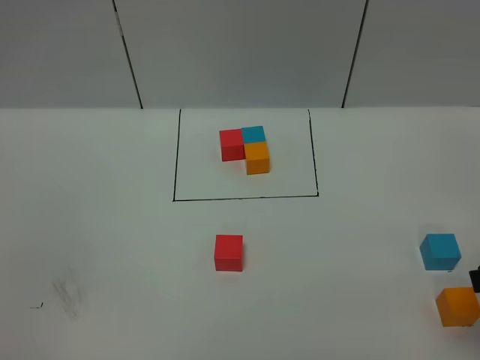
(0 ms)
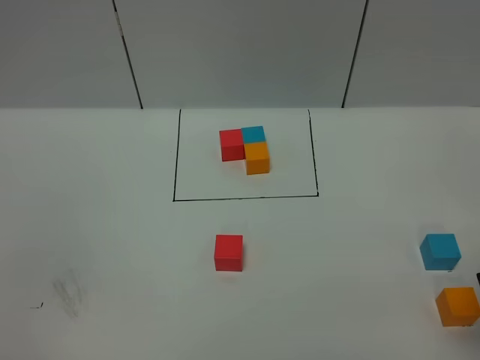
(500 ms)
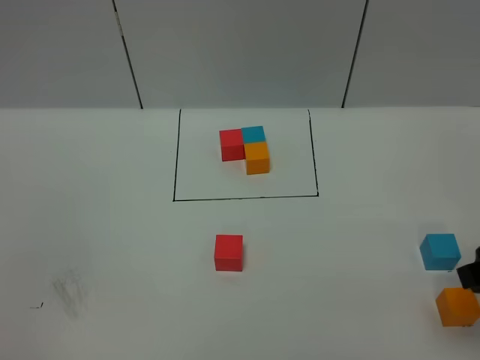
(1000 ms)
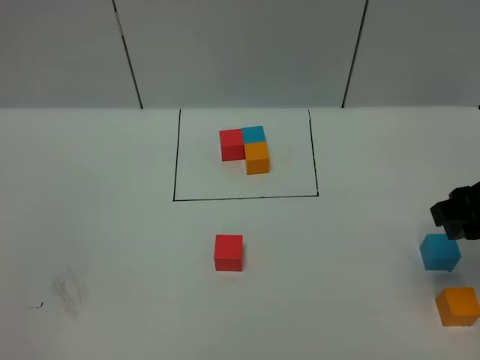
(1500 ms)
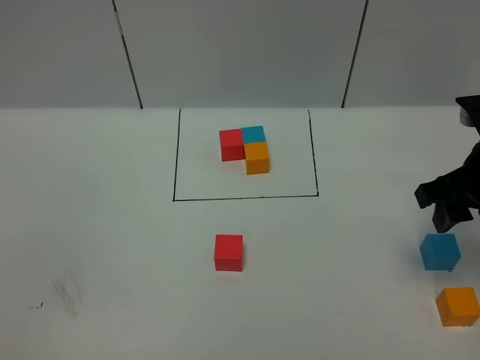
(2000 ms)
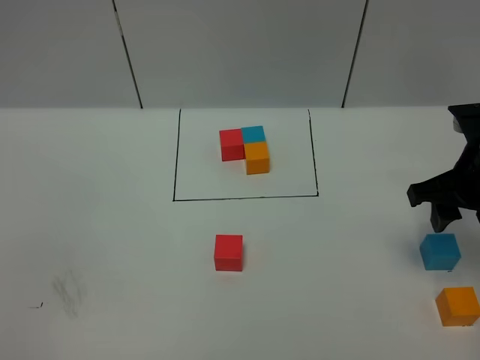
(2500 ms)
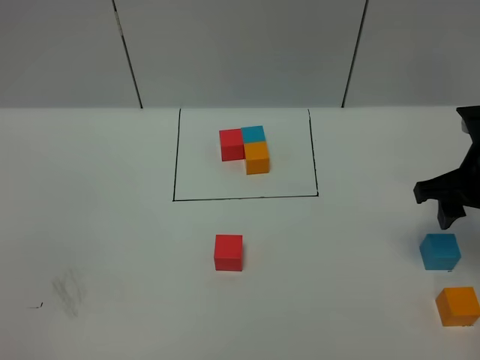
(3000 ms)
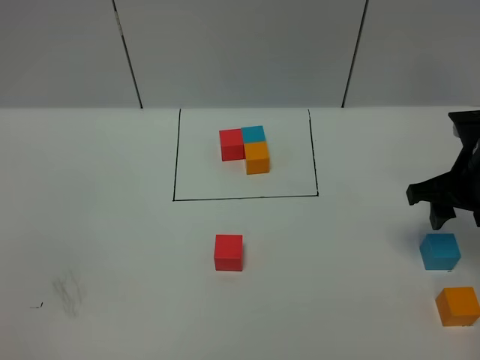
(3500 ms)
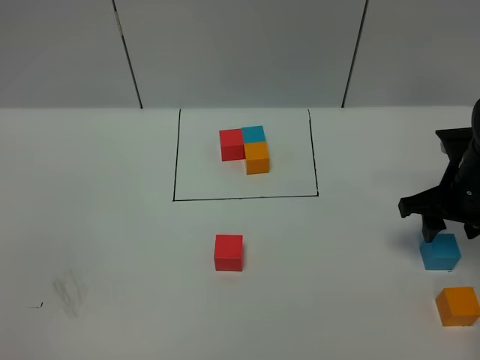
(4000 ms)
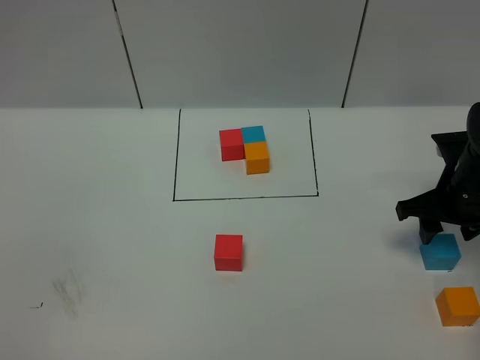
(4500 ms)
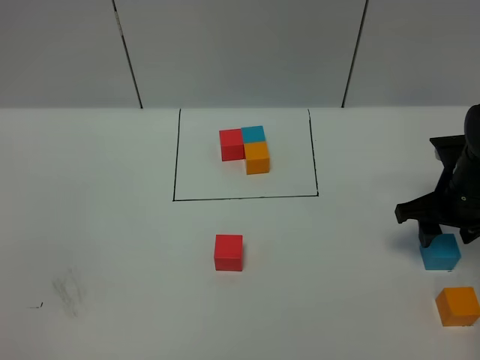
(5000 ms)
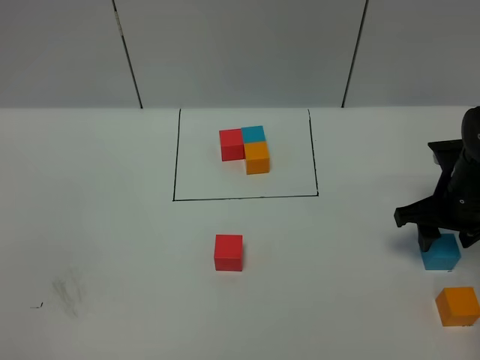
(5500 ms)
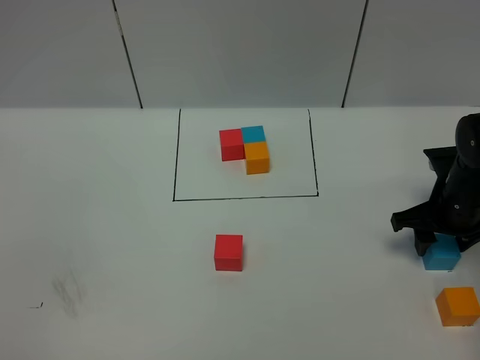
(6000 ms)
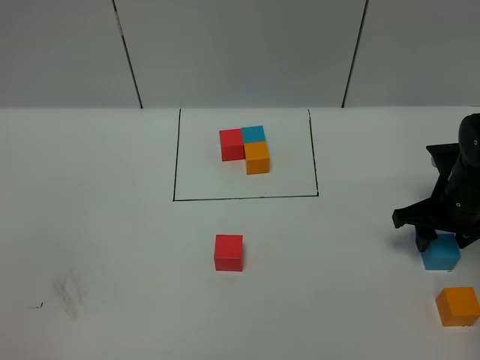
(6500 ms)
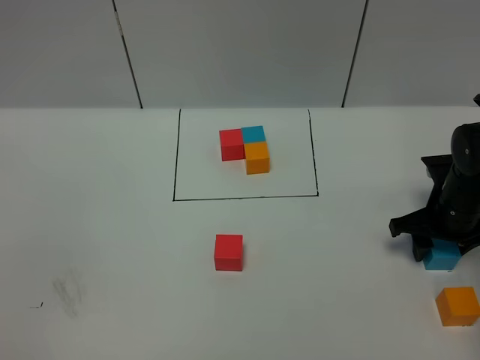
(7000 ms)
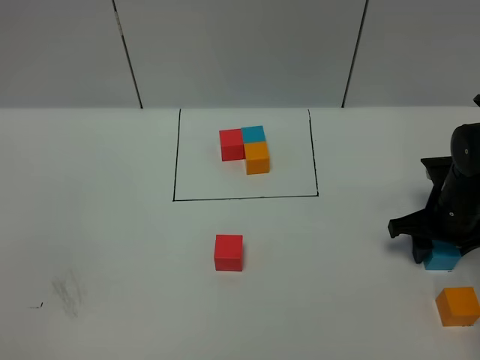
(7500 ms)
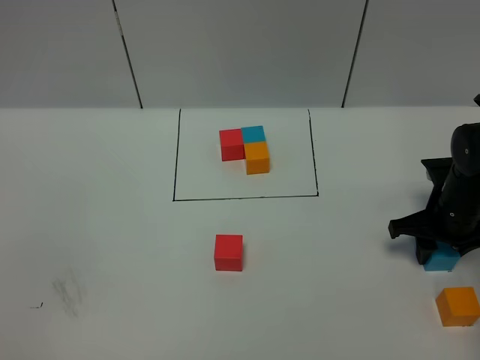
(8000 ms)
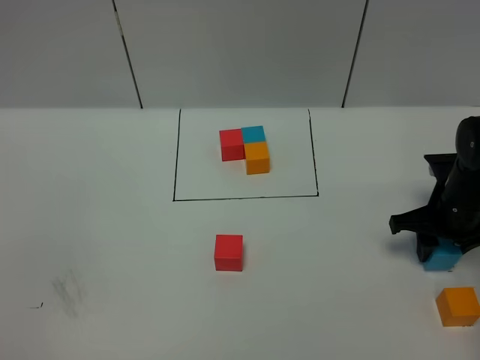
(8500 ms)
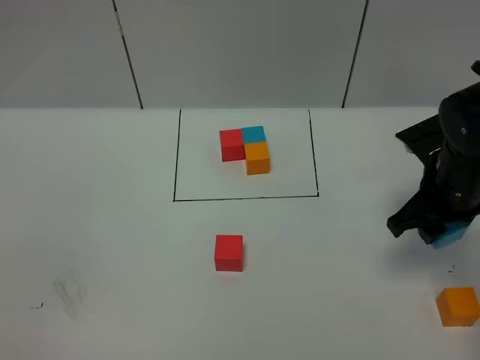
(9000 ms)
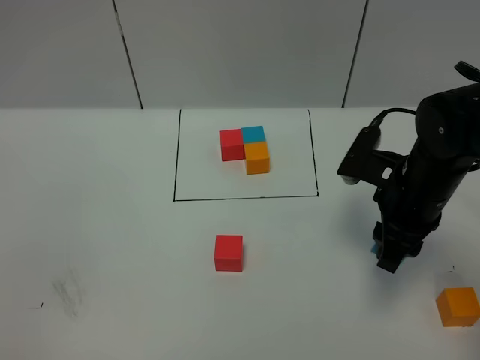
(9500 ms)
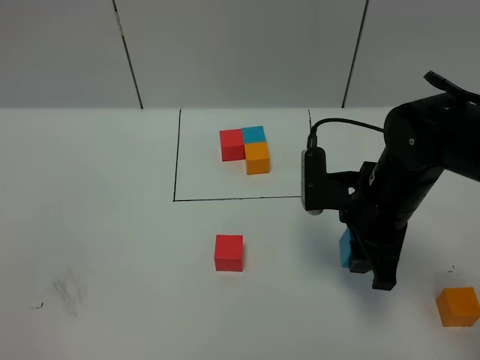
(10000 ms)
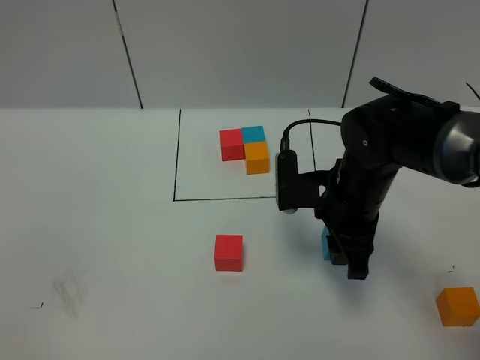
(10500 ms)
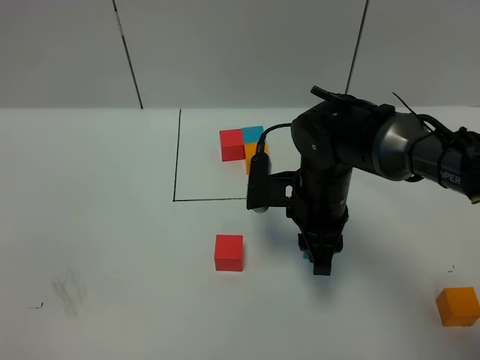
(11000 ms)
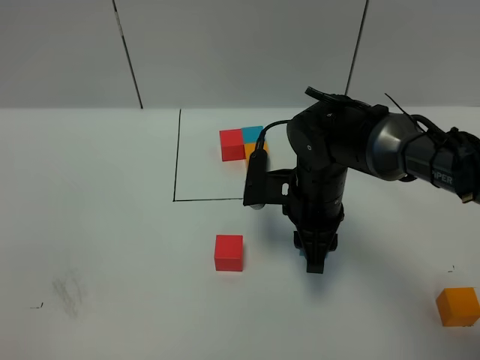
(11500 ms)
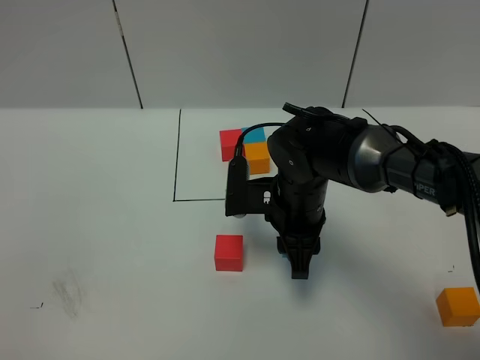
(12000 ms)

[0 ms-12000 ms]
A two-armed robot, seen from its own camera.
Task of the whole recording: According to the building block template in front, assemble the scattered blocks together.
0 ms to 2000 ms: The right gripper shifts approximately 10 cm forward.
2000 ms to 4000 ms: The right gripper moves downward and forward, about 10 cm.
4000 ms to 8000 ms: There are only small adjustments of the grippers.
8000 ms to 10000 ms: The right gripper heads to the left, upward and backward, covering approximately 15 cm.
10000 ms to 12000 ms: The right gripper is displaced to the left by some 10 cm.

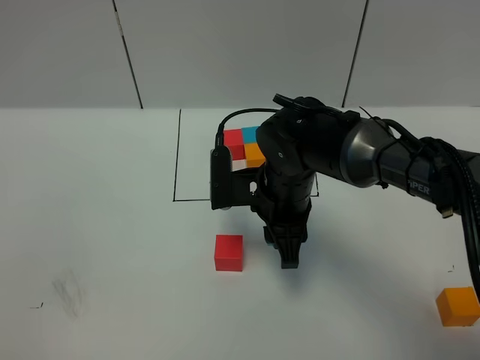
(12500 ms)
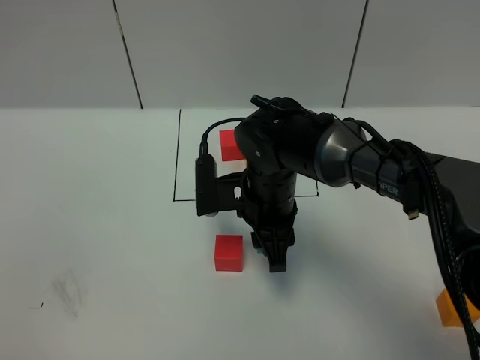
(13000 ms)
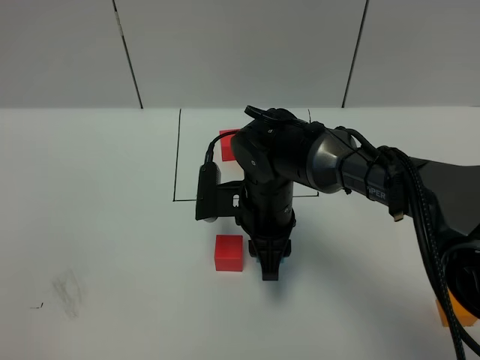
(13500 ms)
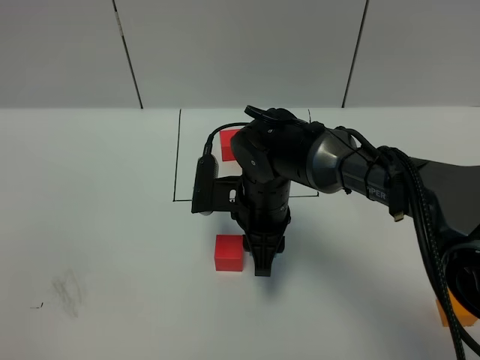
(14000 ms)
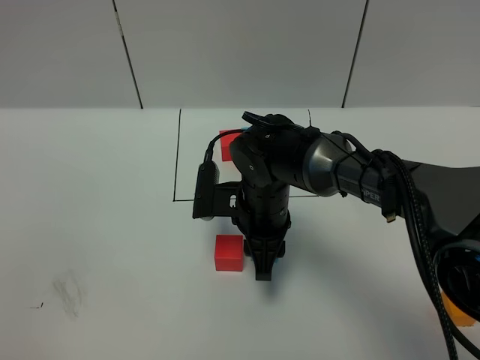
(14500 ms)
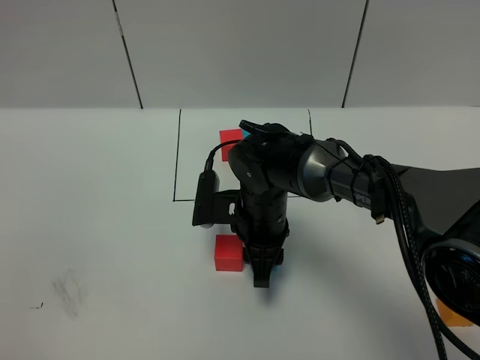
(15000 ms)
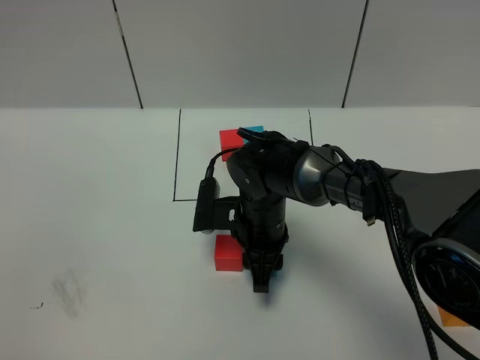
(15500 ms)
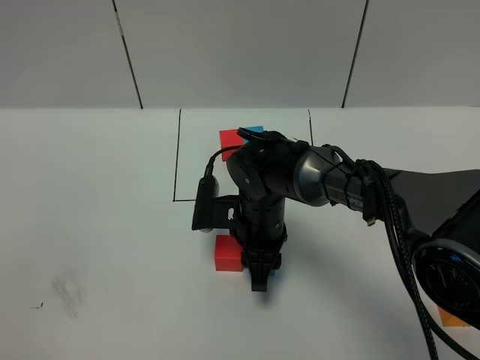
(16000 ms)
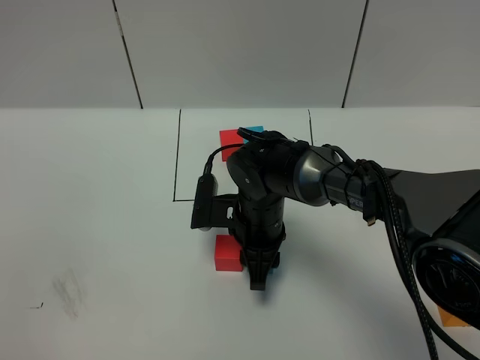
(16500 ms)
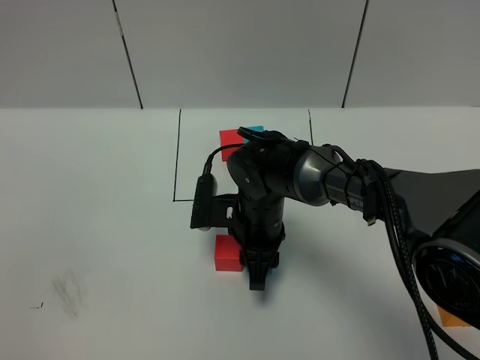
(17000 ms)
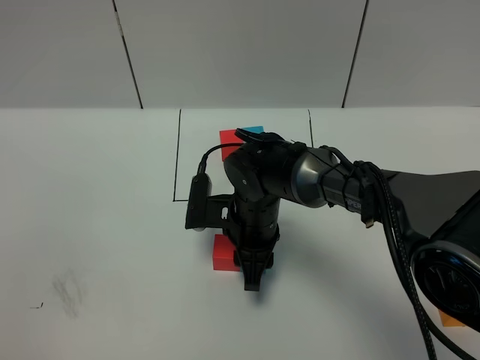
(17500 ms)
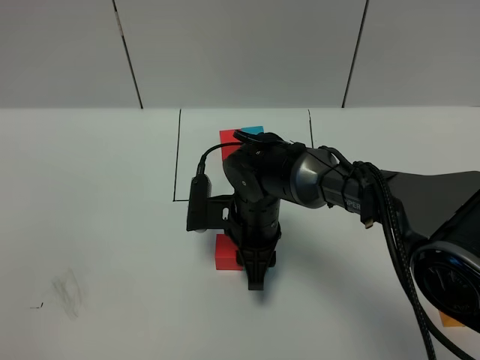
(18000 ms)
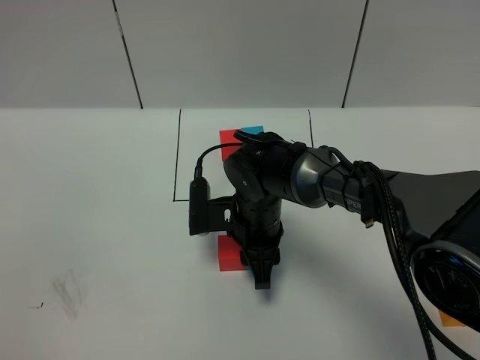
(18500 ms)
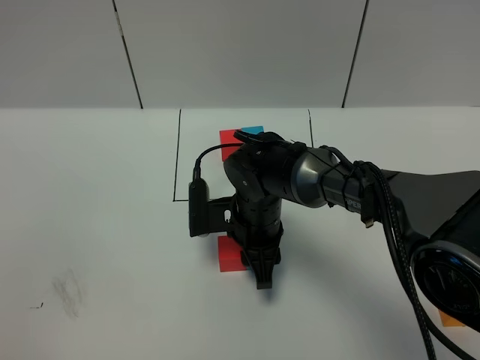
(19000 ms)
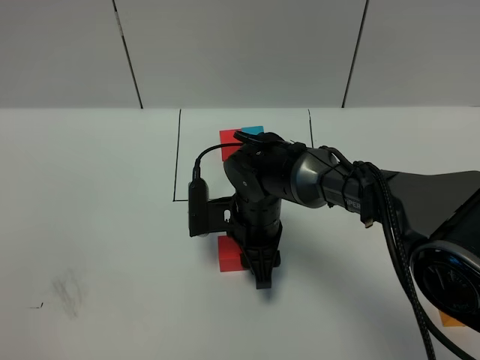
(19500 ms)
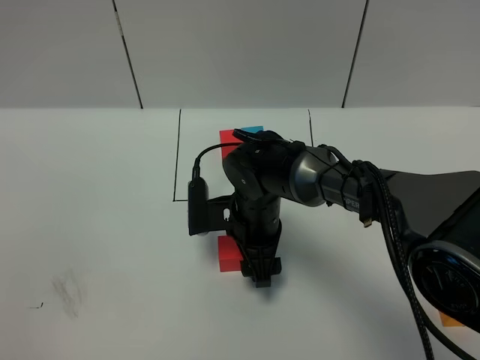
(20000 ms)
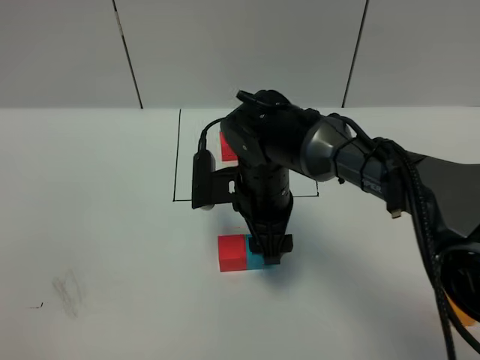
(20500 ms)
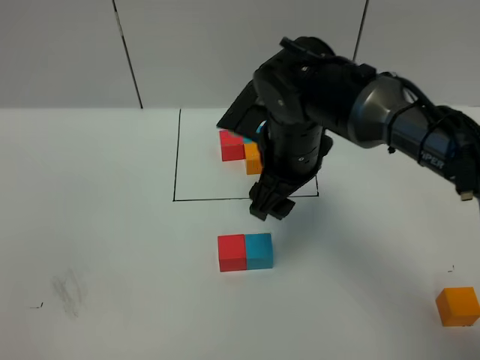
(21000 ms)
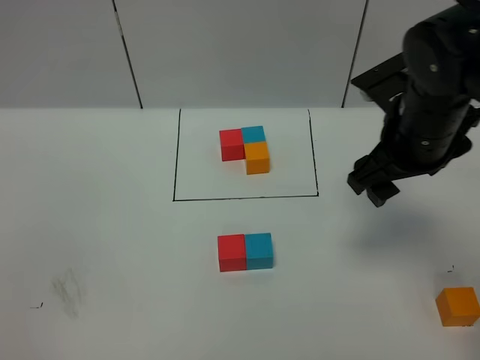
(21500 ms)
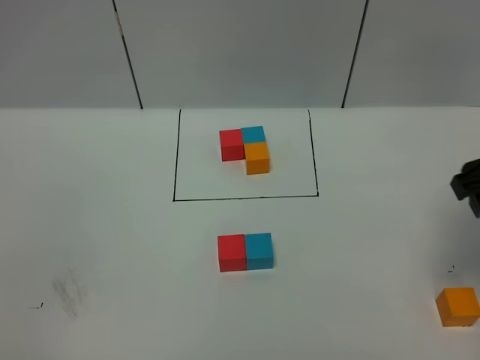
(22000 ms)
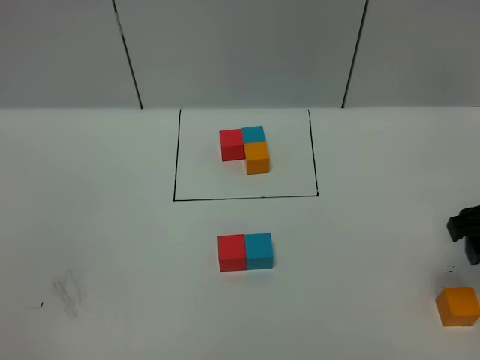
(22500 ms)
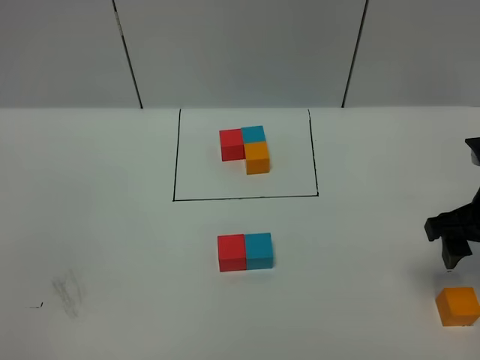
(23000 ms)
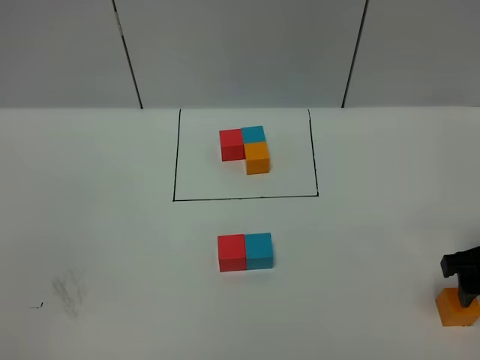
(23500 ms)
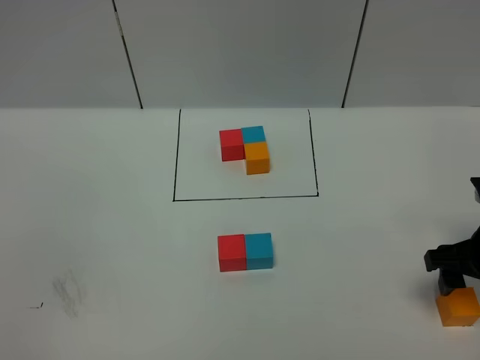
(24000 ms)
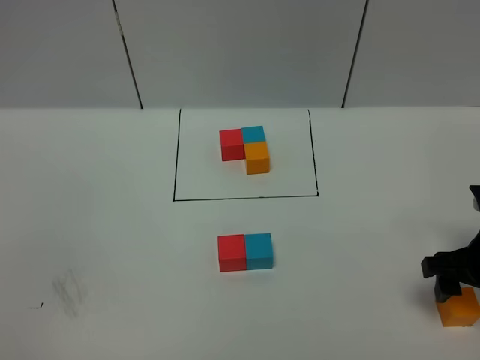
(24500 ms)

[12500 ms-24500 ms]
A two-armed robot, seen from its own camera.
Task of the whole recording: According to the building block template in front, assemble the scattered blocks together.
Step, 12500 ms to 20000 ms: Put the blue cube on the right of the red cube.
12500 ms to 14500 ms: The grippers stay close to where they were, moving slightly.
14500 ms to 18500 ms: There are only small adjustments of the grippers.
18500 ms to 20500 ms: The right gripper is displaced upward by roughly 5 cm, and opens.
20500 ms to 22500 ms: The right gripper moves to the right, about 25 cm.
22500 ms to 24500 ms: The right gripper shifts approximately 10 cm downward.

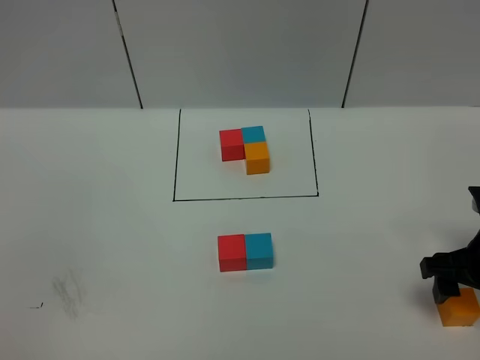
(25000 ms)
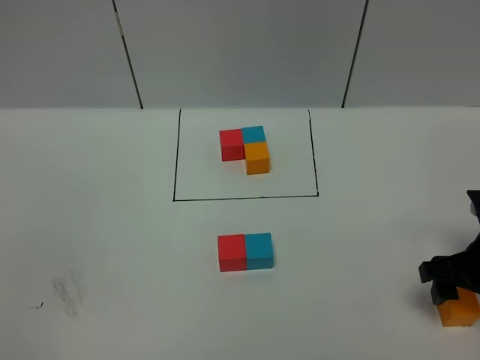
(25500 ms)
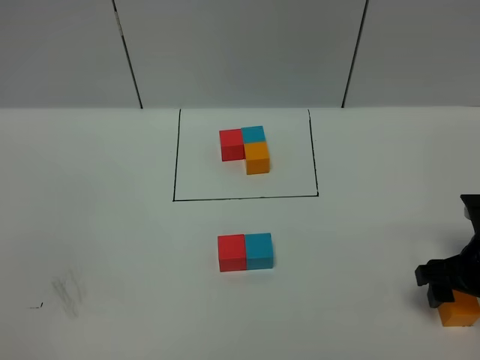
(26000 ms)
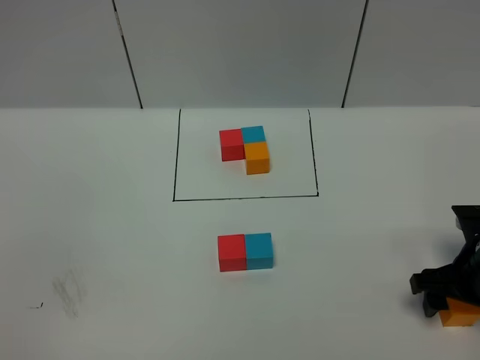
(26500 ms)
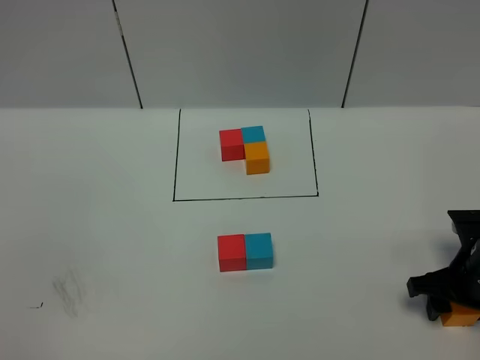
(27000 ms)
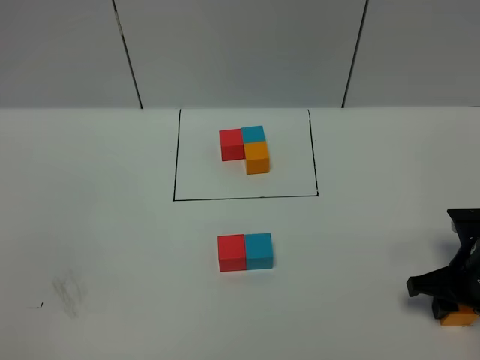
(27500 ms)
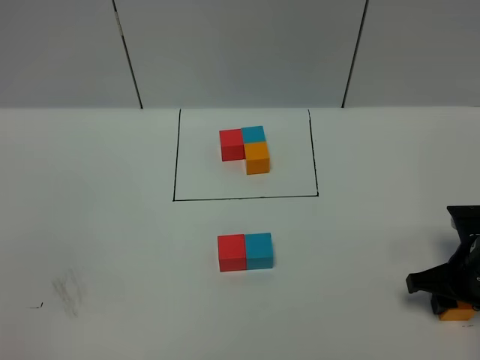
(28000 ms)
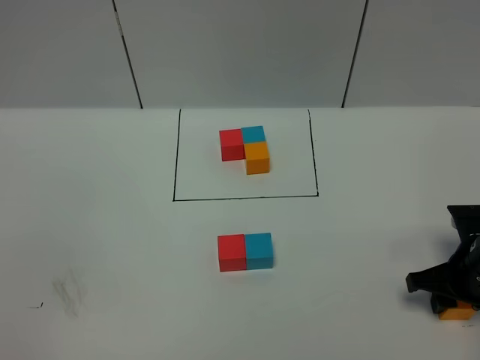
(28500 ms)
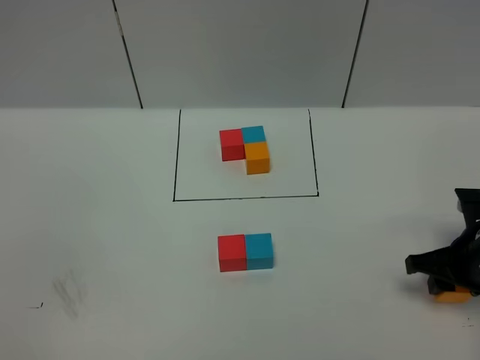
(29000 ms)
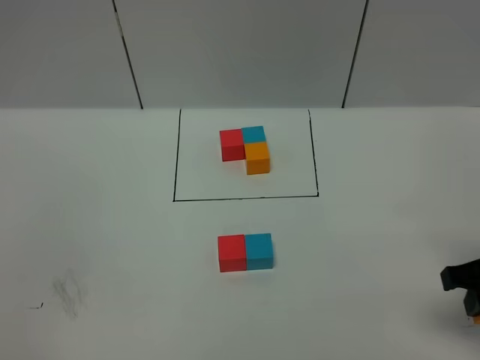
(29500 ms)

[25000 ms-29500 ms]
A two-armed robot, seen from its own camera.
Task of the whole recording: According to the building block template in front, assemble the scattered blocks together.
25000 ms to 27000 ms: The right gripper shifts some 5 cm downward.
27000 ms to 29500 ms: The right gripper travels upward and backward by roughly 10 cm.
